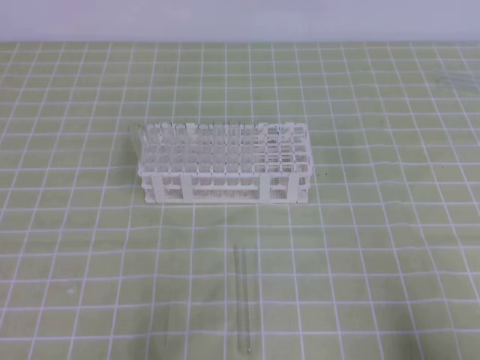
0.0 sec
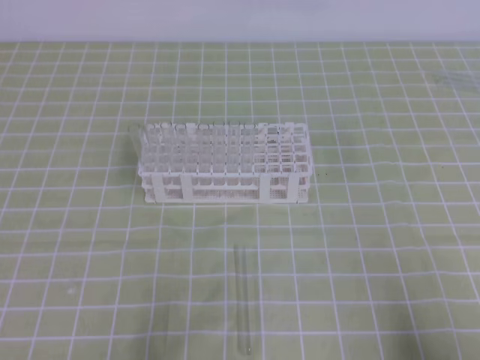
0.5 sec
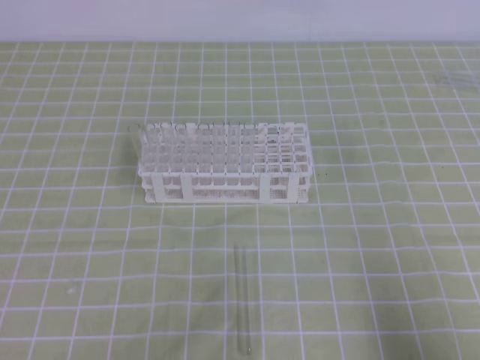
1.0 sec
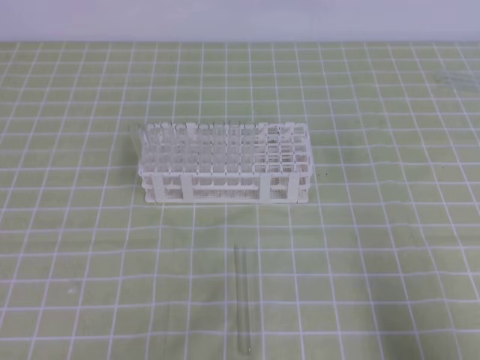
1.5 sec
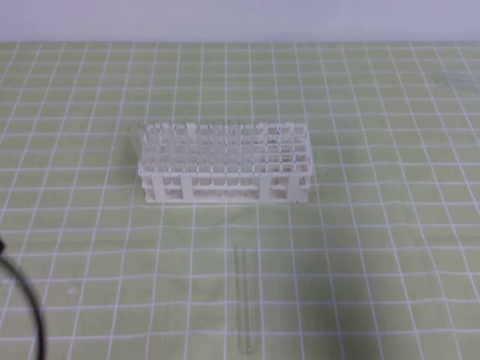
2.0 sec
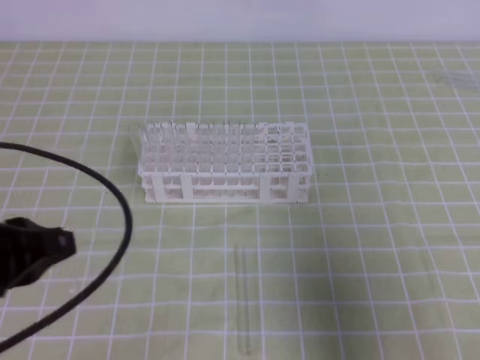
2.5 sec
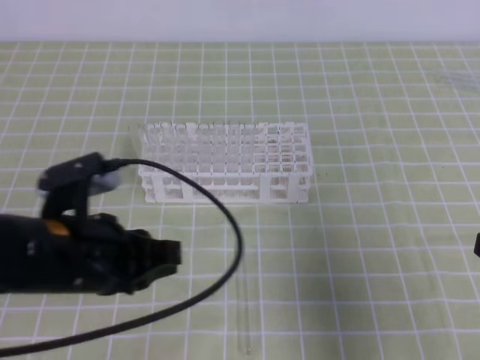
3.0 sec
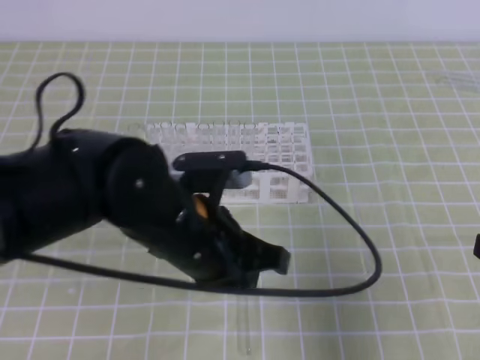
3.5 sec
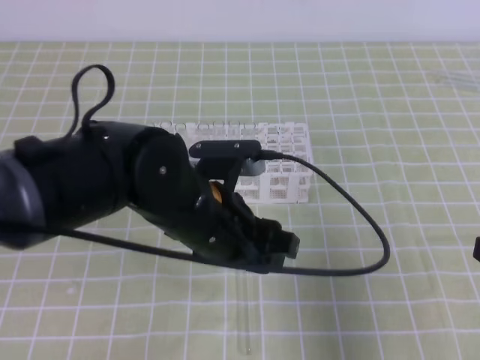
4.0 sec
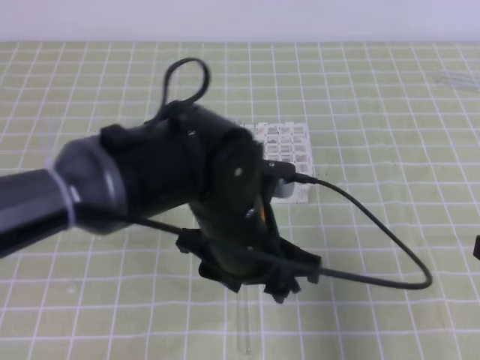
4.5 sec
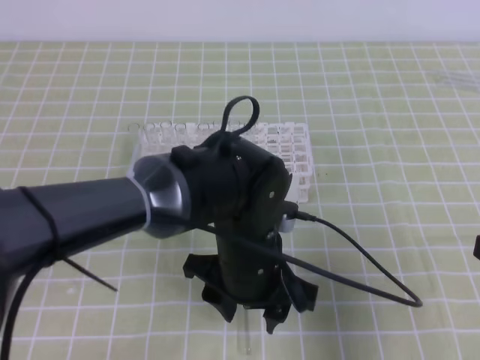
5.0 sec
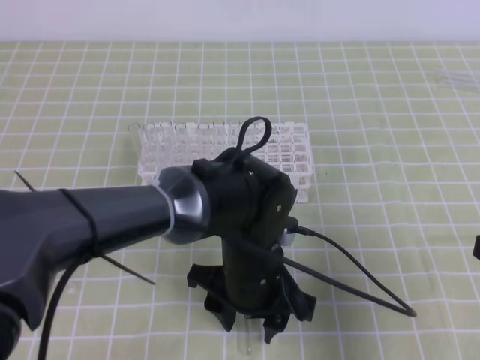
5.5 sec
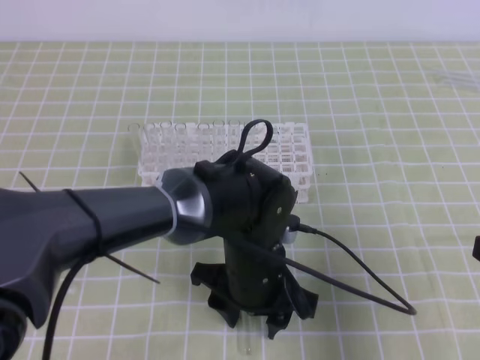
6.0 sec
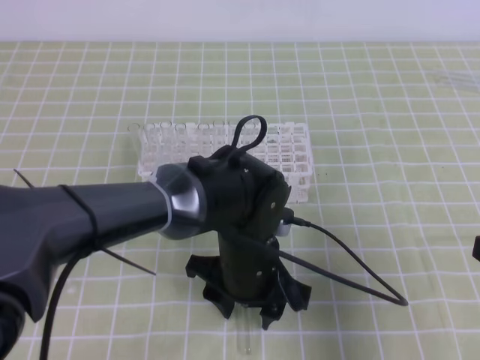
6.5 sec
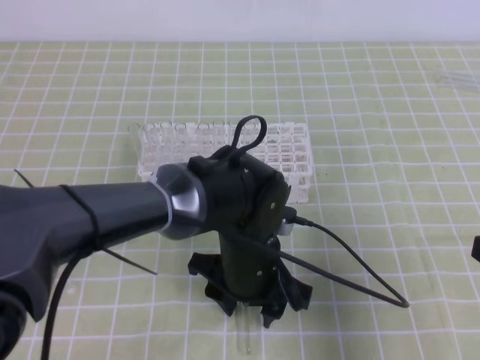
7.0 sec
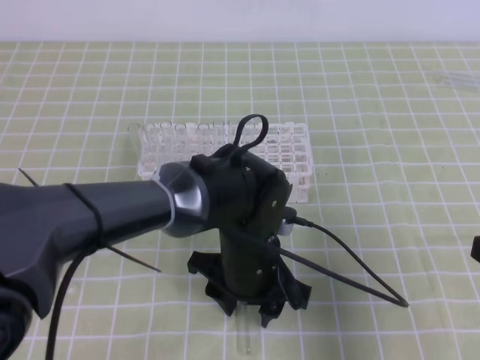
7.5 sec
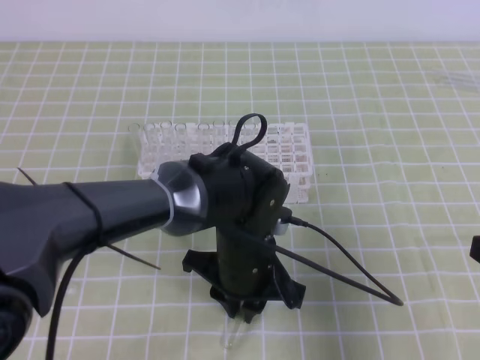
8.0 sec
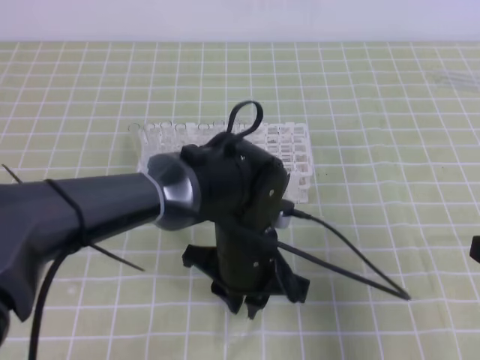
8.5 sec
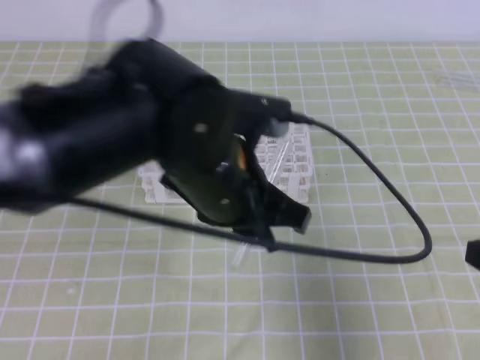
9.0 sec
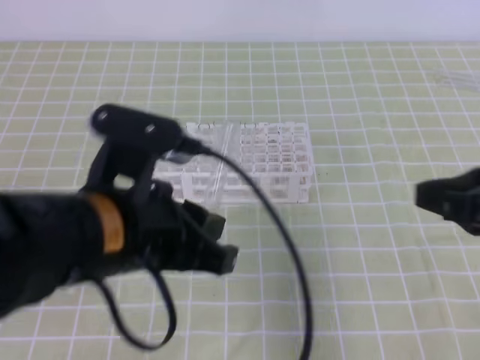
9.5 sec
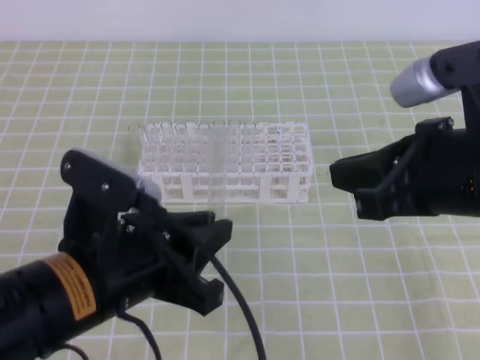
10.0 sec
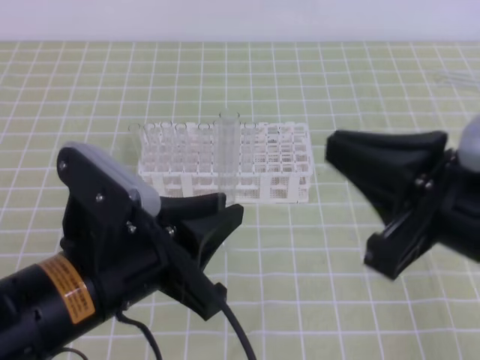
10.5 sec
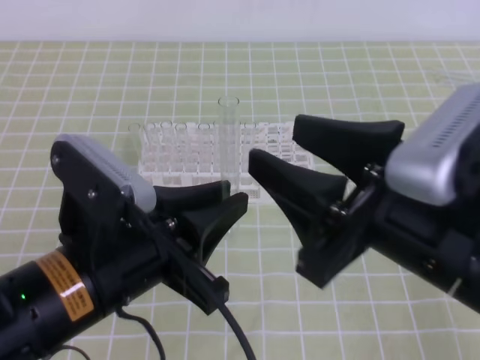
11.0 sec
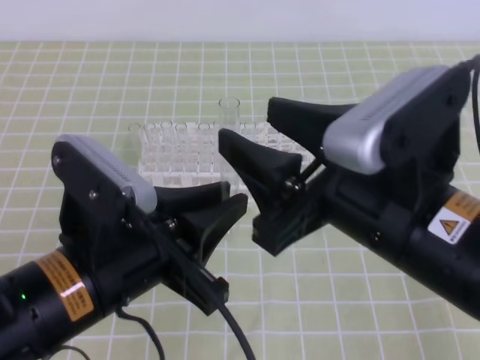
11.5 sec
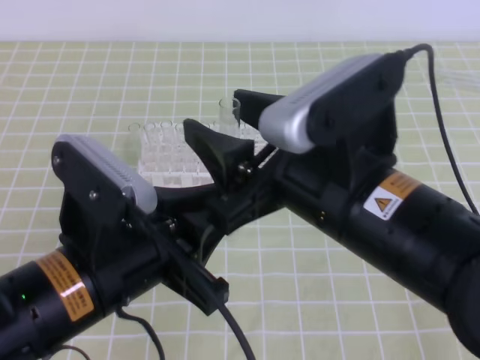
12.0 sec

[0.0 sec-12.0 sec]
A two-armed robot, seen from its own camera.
0.0 sec to 2.0 sec: Both grippers move upward, some 10 cm.
2.0 sec to 4.0 sec: The left gripper moves to the right and forward, roughly 25 cm, and opens up. Meanwhile the right gripper shifts approximately 5 cm forward.
4.0 sec to 6.0 sec: The left gripper moves downward and to the right, roughly 10 cm.
6.0 sec to 8.0 sec: The left gripper closes its fingers.
8.0 sec to 10.0 sec: The left gripper shifts about 20 cm to the left, upward and backward, while the right gripper heads to the left and upward, covering roughly 10 cm.
10.0 sec to 12.0 sec: The right gripper travels to the left by about 10 cm, and opens its fingers.

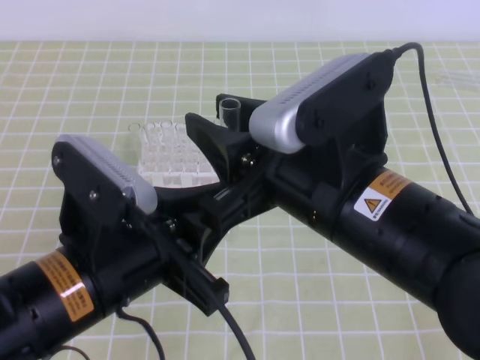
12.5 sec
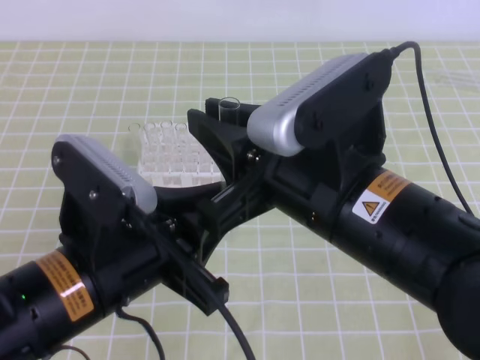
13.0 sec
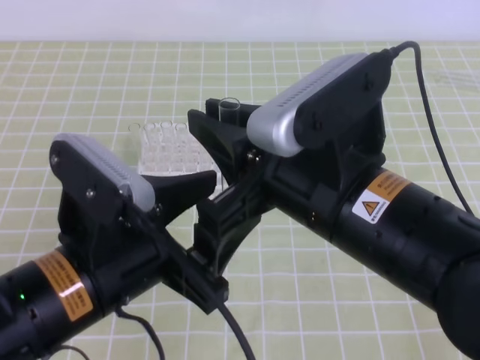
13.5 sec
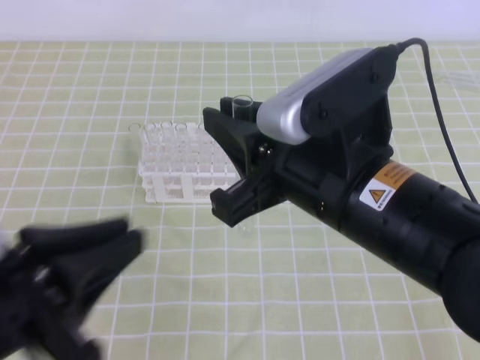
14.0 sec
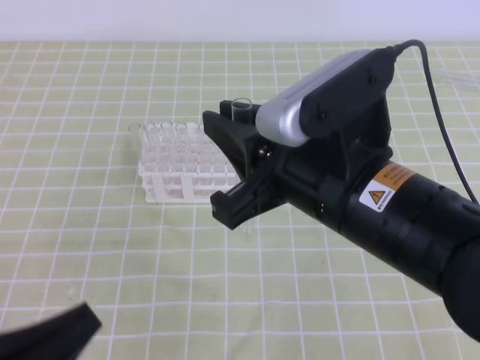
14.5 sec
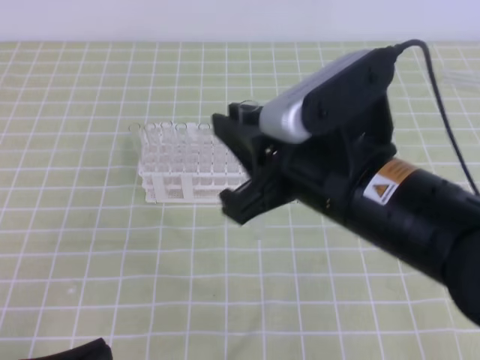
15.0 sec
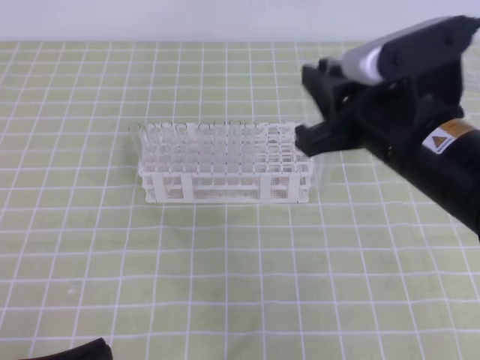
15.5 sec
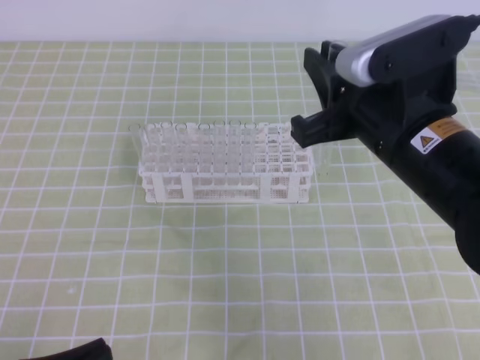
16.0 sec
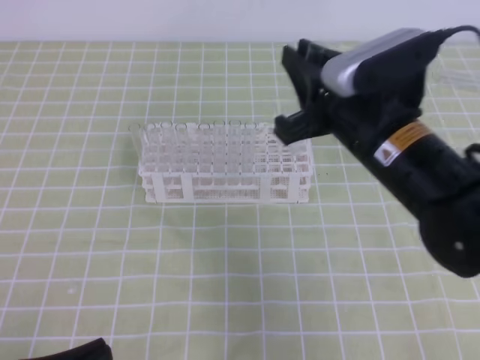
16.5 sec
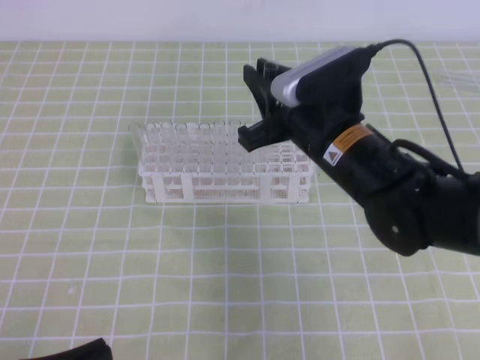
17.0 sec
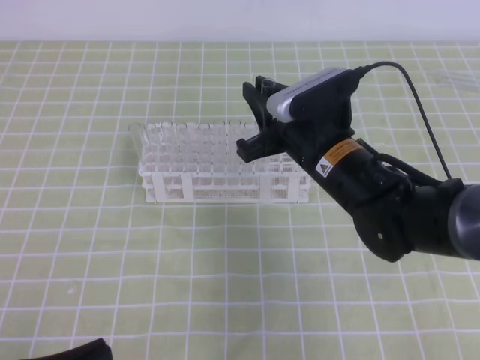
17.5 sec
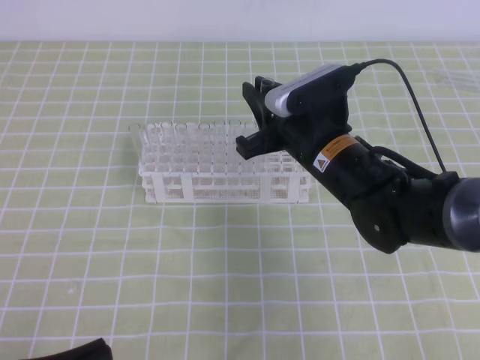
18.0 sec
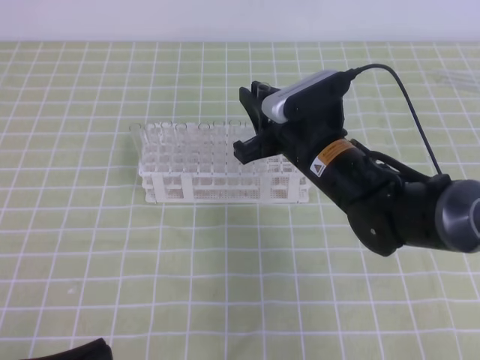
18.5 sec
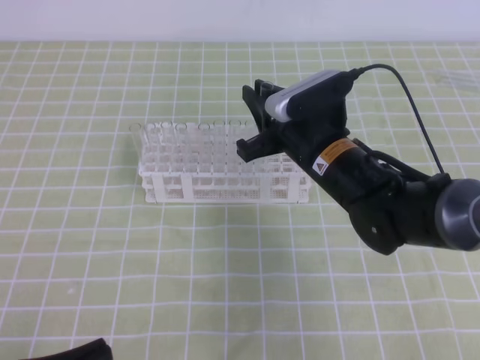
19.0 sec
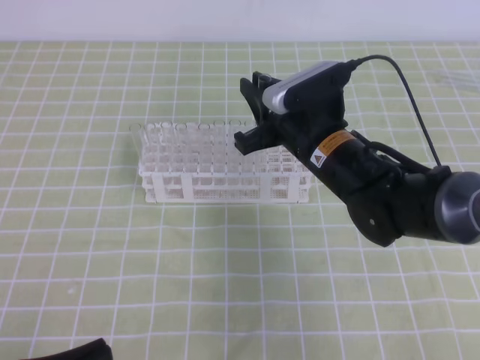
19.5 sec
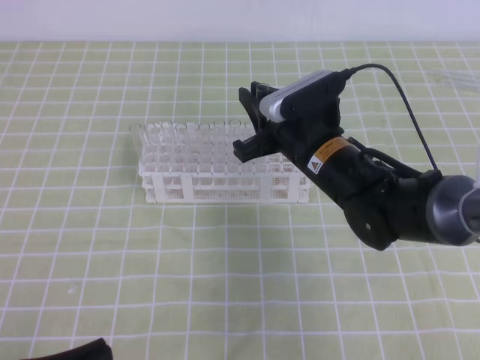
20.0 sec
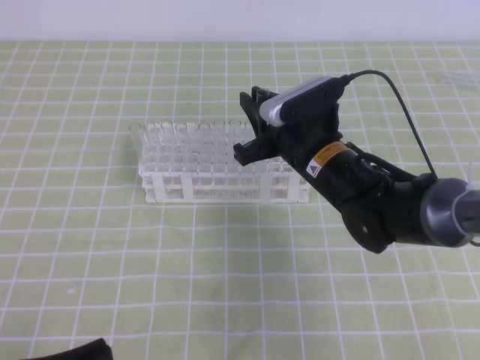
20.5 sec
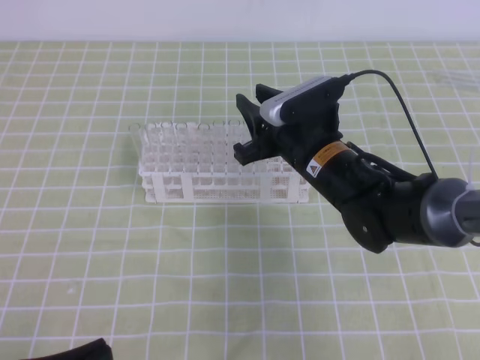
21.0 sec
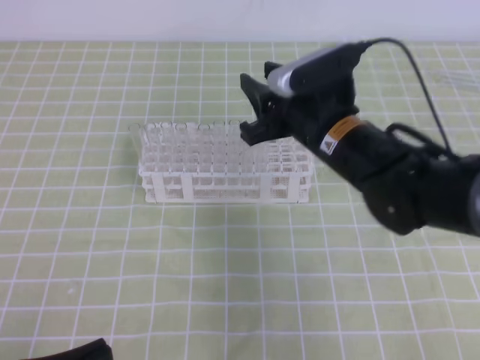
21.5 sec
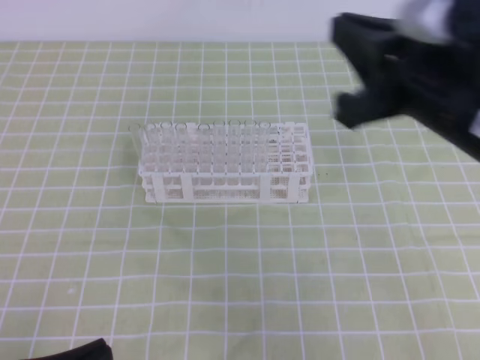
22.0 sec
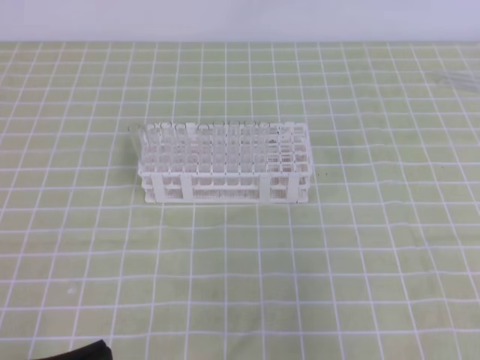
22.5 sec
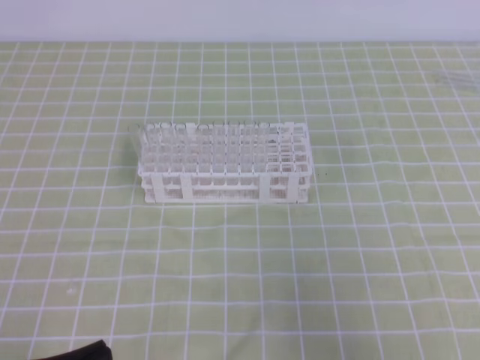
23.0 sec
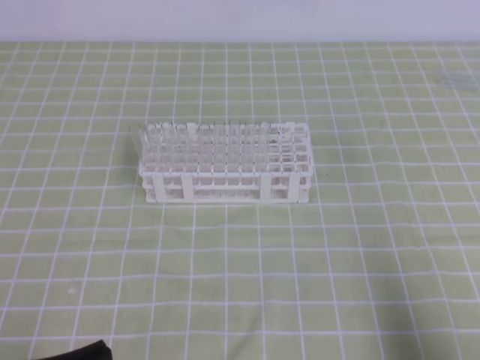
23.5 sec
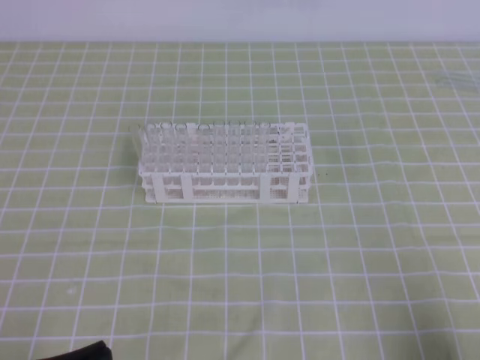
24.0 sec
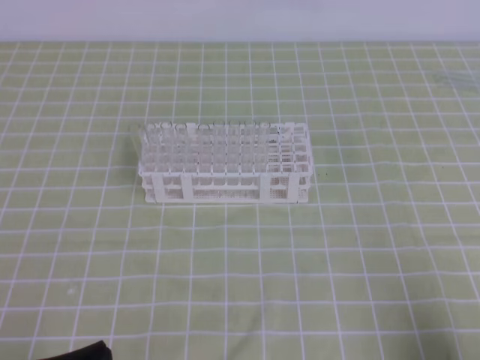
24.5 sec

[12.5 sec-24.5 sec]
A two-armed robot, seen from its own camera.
12.5 sec to 14.5 sec: The right gripper closes; the left gripper heads to the left and backward, covering some 15 cm, and opens and closes again.
14.5 sec to 16.5 sec: The right gripper goes roughly 10 cm forward; the left gripper travels downward by about 5 cm.
16.5 sec to 18.5 sec: The right gripper goes some 10 cm downward and forward.
18.5 sec to 20.5 sec: The grippers stay close to where they were, moving slightly.
20.5 sec to 22.5 sec: The right gripper travels backward, to the right and upward by some 35 cm, and opens, then closes again.
22.5 sec to 24.5 sec: The right gripper travels downward by roughly 15 cm.

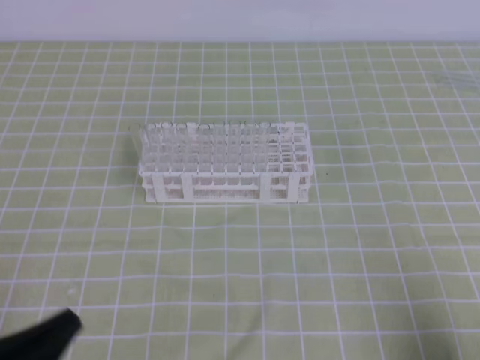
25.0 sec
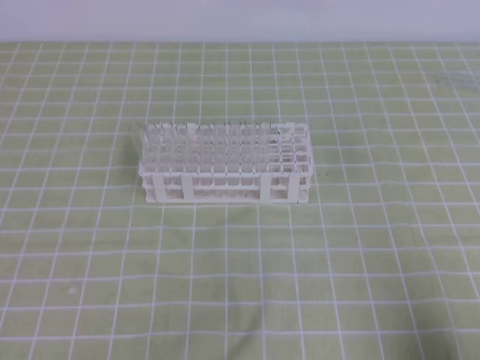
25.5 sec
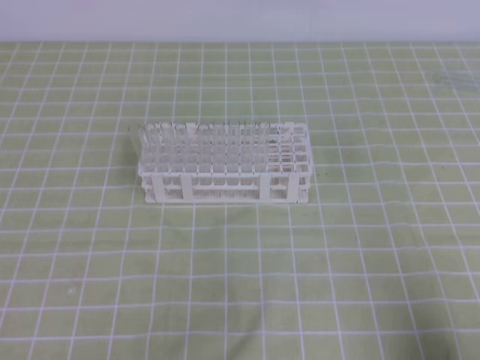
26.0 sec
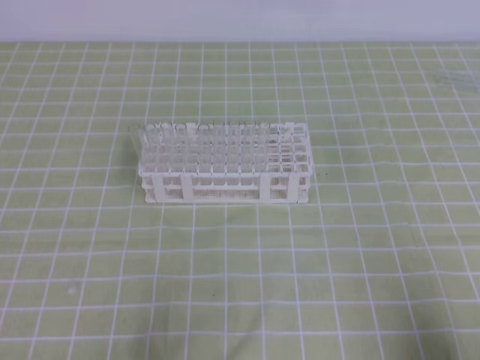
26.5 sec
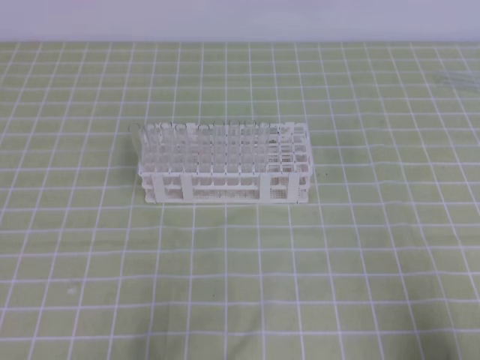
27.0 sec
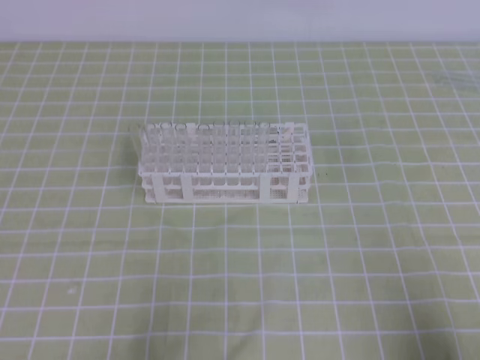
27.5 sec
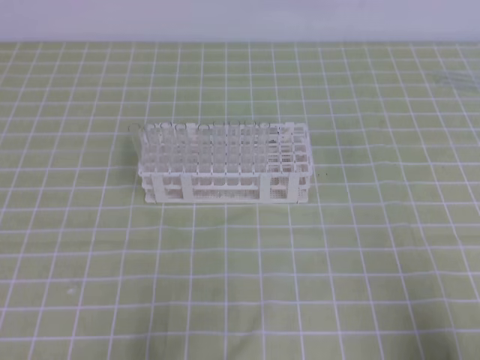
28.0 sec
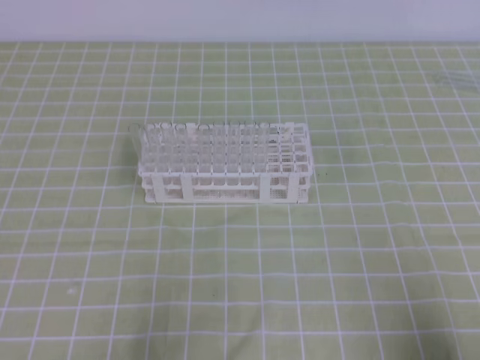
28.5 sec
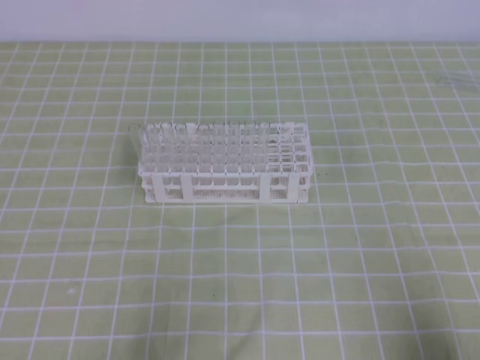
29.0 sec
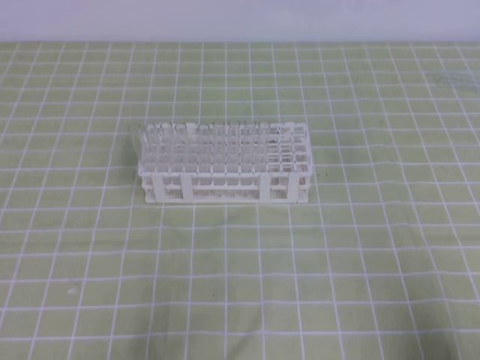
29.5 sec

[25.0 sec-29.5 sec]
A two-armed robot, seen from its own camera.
27.0 sec to 29.5 sec: Both grippers stay about where they are.
